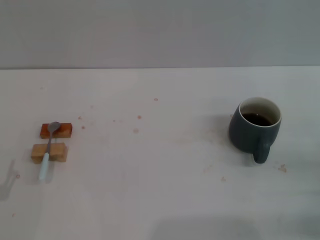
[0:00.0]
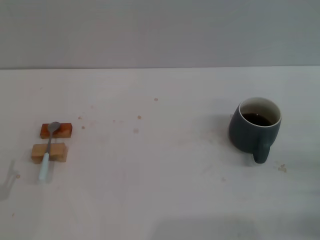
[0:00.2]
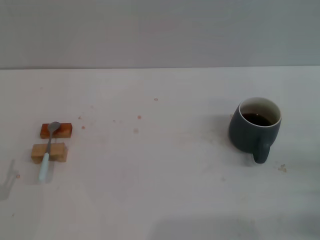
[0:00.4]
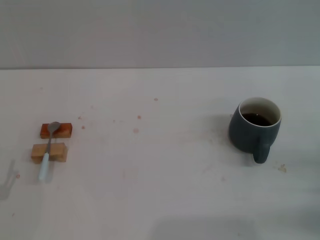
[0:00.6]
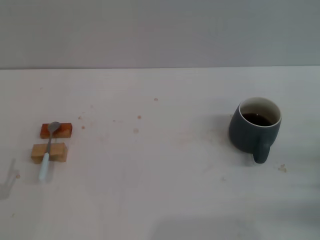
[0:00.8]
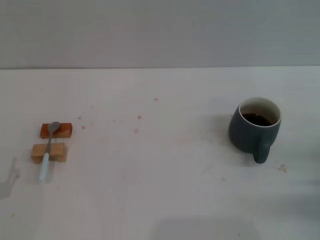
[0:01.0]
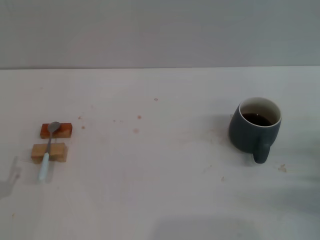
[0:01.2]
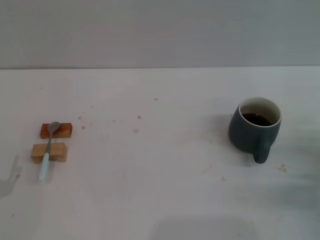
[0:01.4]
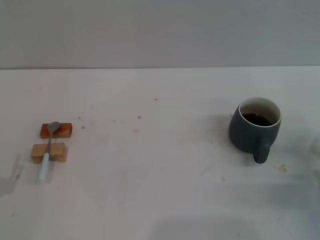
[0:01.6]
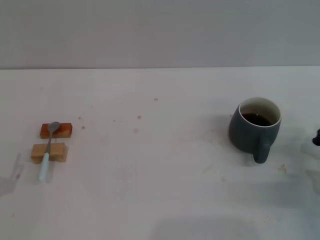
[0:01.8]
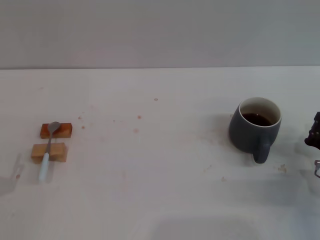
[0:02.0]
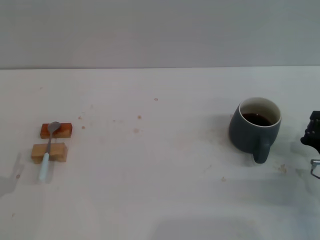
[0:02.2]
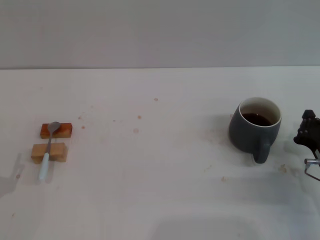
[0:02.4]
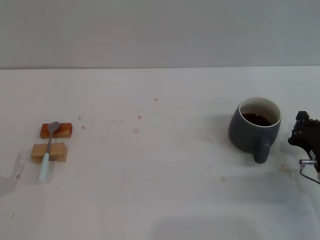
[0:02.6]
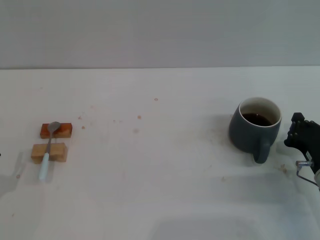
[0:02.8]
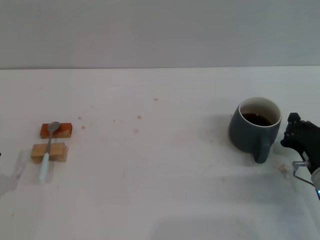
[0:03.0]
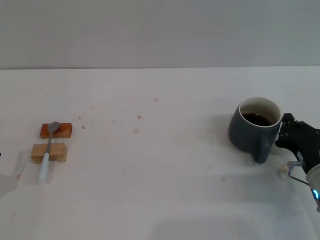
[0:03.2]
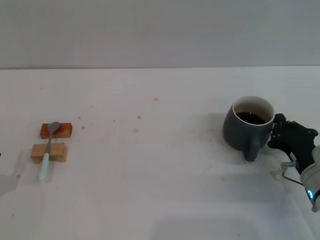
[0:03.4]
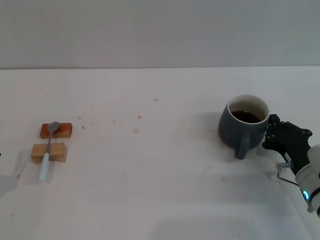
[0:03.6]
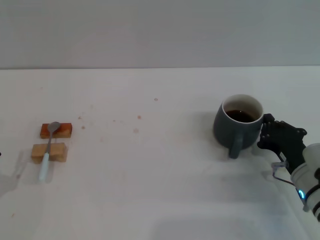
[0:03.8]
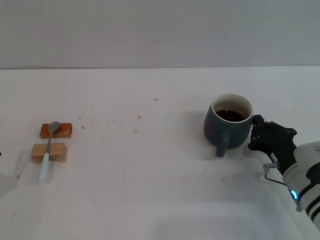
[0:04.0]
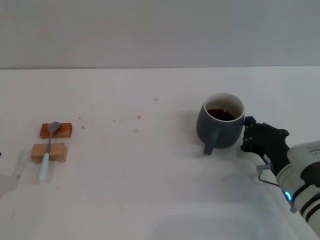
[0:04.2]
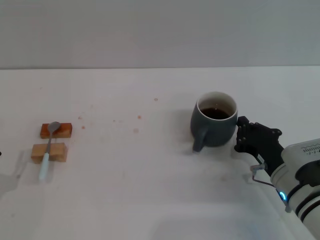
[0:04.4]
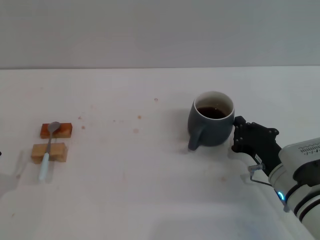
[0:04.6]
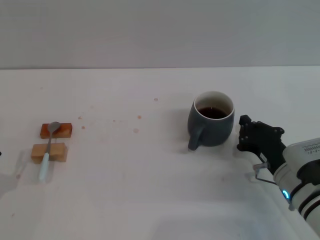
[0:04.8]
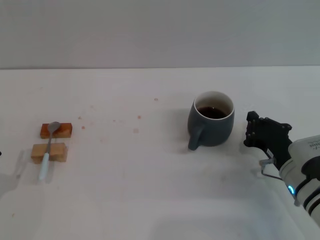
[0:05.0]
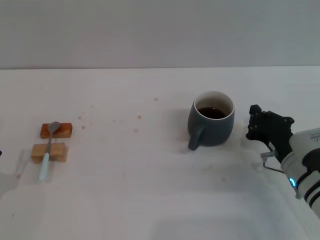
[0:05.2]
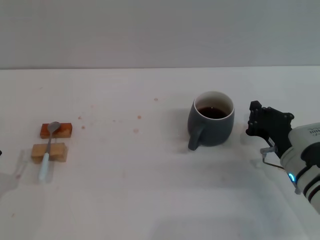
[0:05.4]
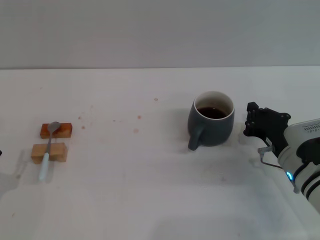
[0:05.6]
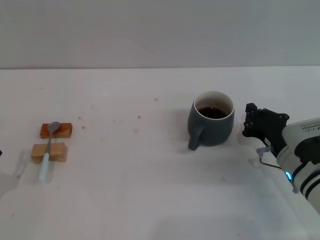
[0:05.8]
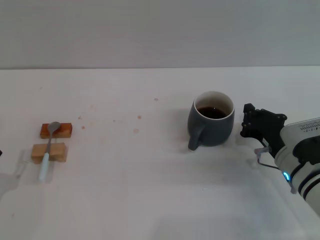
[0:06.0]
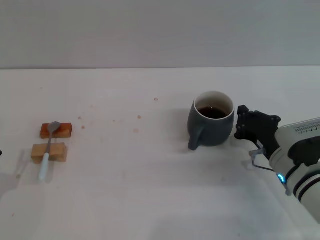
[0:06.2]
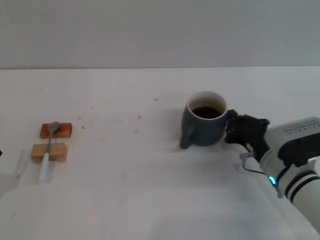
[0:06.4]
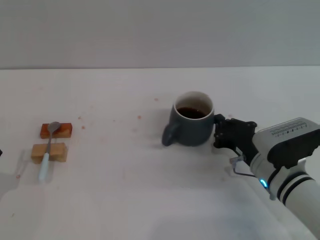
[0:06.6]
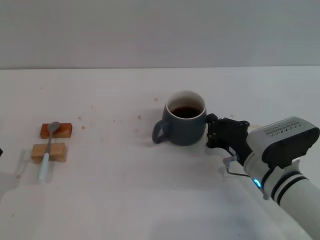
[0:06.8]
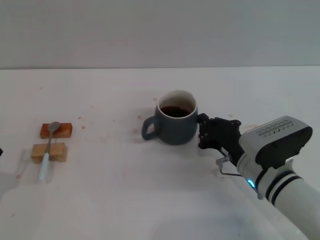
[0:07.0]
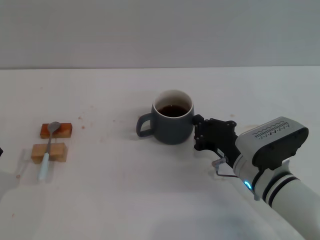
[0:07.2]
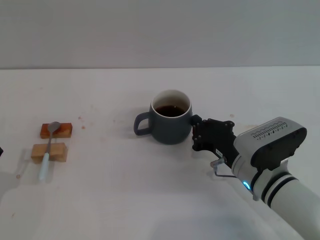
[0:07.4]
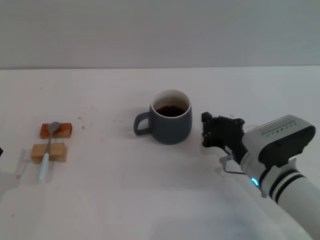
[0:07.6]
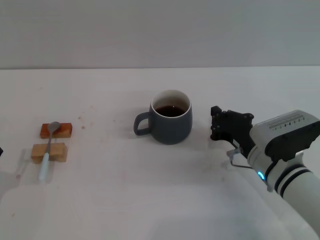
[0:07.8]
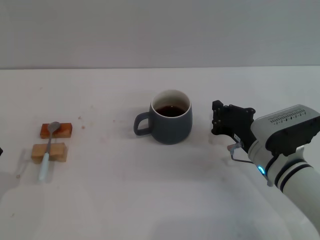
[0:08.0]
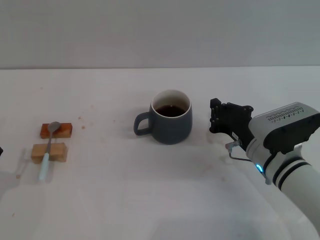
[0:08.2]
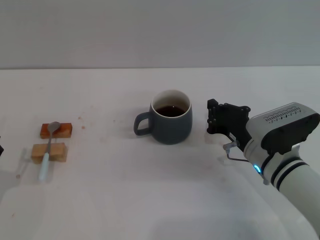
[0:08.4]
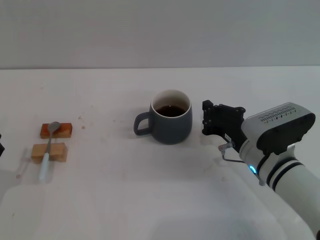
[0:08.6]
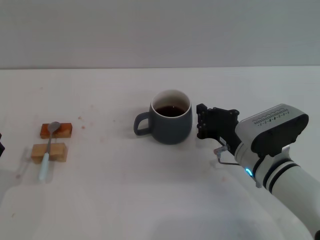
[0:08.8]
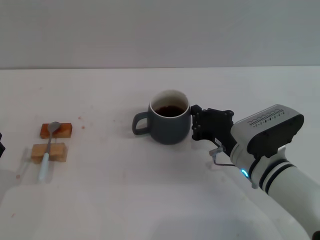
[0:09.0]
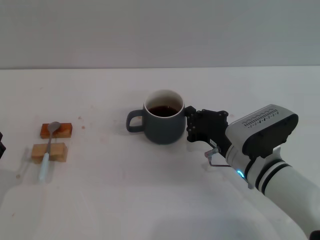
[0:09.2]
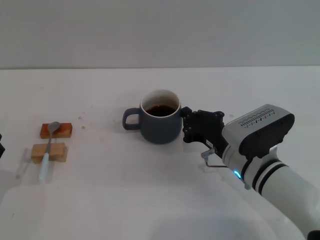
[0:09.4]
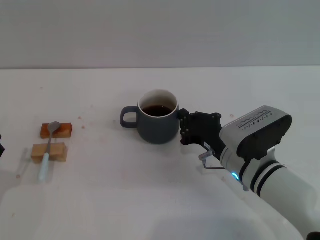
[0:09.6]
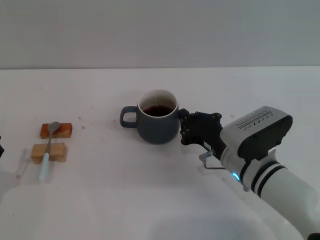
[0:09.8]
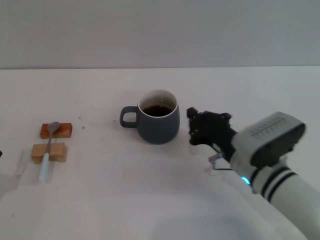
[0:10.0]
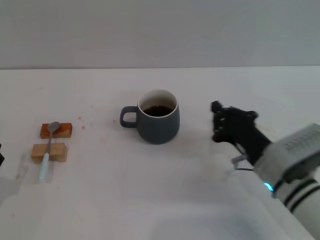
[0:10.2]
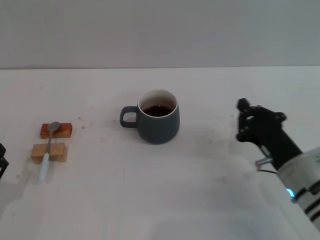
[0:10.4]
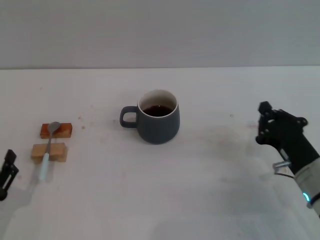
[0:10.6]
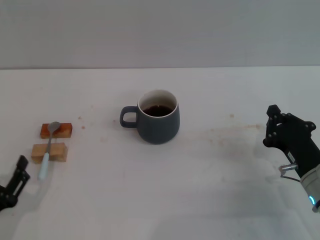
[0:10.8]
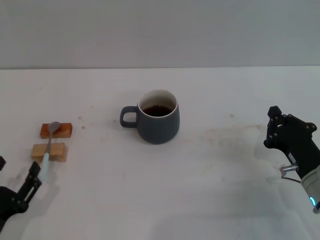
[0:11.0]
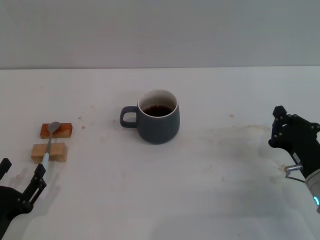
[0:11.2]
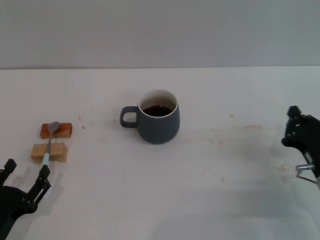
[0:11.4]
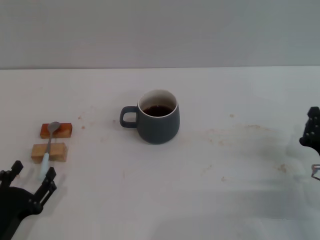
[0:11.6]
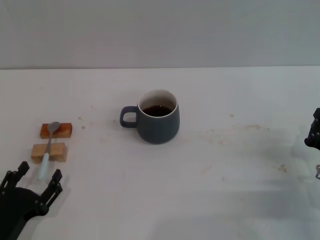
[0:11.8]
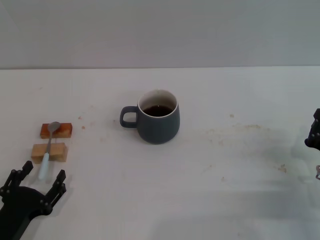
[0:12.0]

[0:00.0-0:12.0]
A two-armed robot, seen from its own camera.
Task of the whole recording: Move the grey cup to the center, lift the blue spoon, stir it three times in the cup, and put the spoon into the cup.
Step, 0:00.0 to 0:10.2: Move the cup with coffee to the center of view with the right gripper.
0:00.0 to 0:01.6: The right gripper shifts by some 5 cm.
0:01.6 to 0:03.0: The grippers make only small movements.
0:03.0 to 0:04.4: The right gripper goes some 5 cm to the left.
0:04.4 to 0:06.0: The grippers move only a little.
0:07.6 to 0:09.0: The grippers stay close to where they were, moving slightly.
0:09.0 to 0:10.4: The right gripper goes some 5 cm to the right.
0:10.4 to 0:12.0: The right gripper moves to the right, approximately 5 cm. Meanwhile the left gripper shifts by some 5 cm.

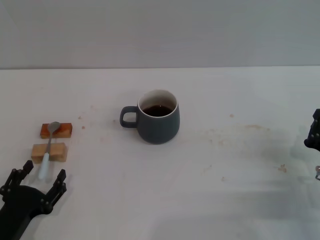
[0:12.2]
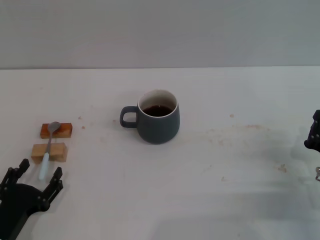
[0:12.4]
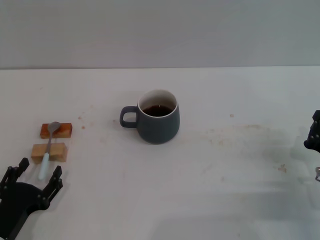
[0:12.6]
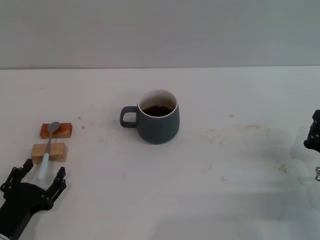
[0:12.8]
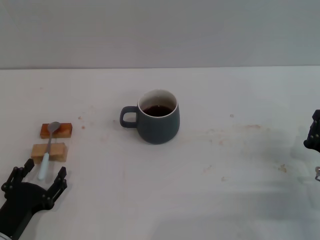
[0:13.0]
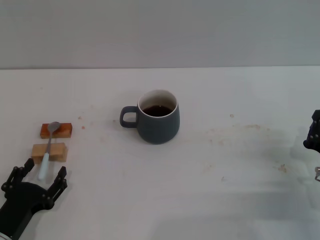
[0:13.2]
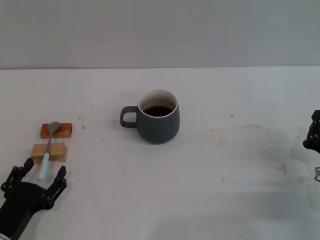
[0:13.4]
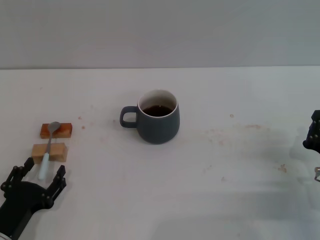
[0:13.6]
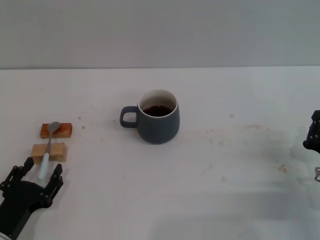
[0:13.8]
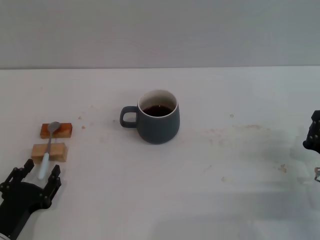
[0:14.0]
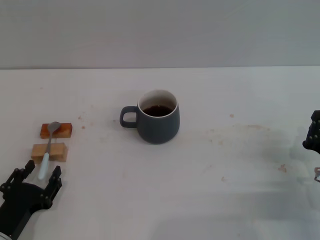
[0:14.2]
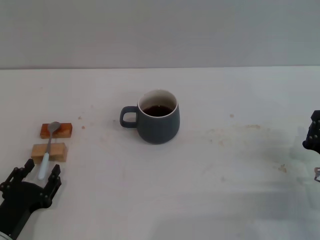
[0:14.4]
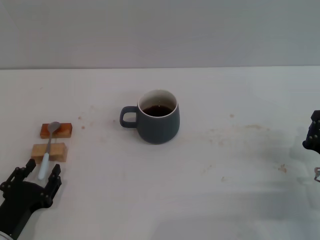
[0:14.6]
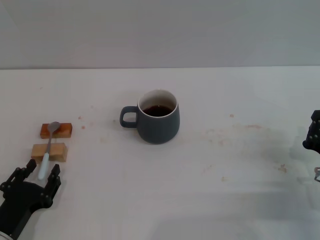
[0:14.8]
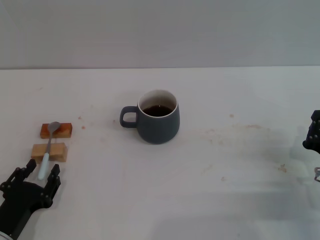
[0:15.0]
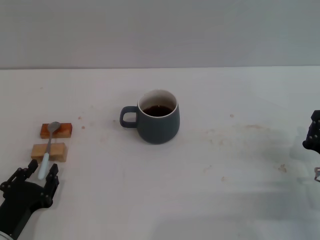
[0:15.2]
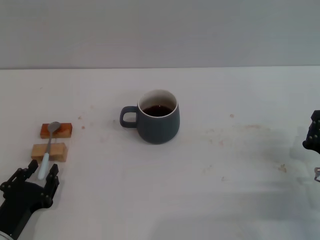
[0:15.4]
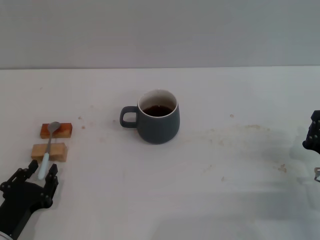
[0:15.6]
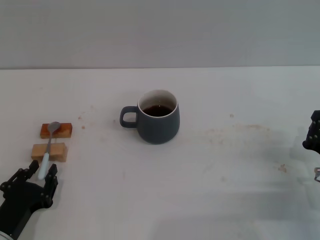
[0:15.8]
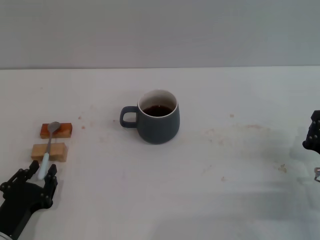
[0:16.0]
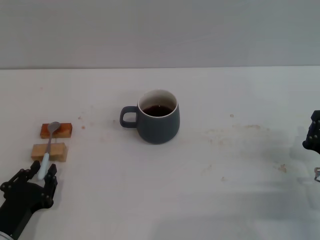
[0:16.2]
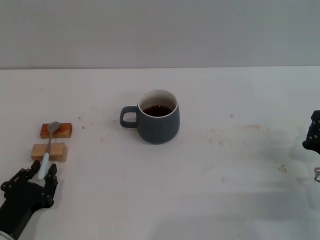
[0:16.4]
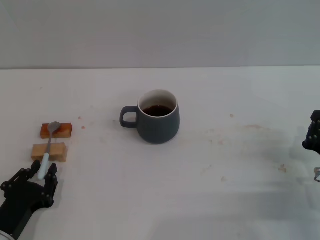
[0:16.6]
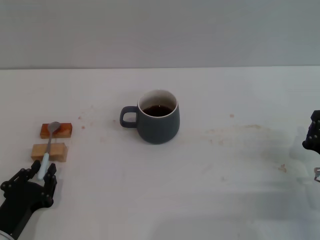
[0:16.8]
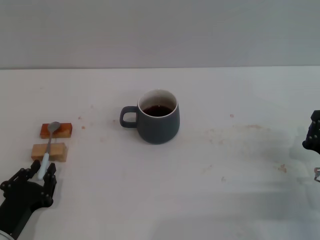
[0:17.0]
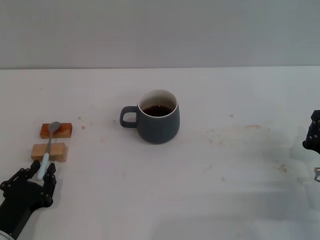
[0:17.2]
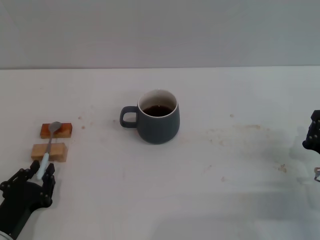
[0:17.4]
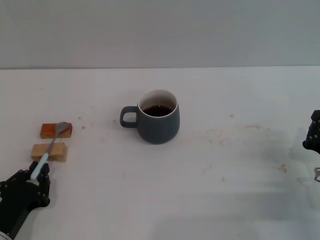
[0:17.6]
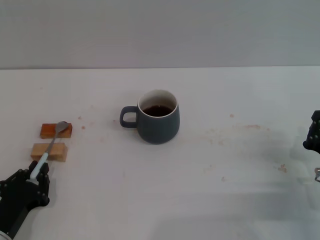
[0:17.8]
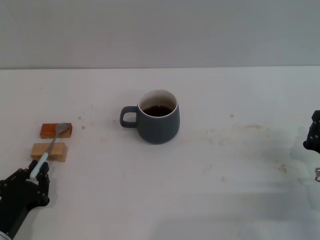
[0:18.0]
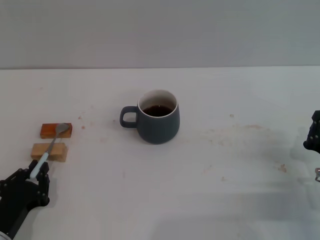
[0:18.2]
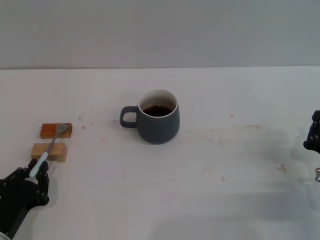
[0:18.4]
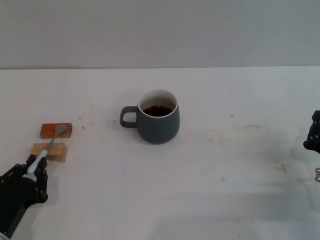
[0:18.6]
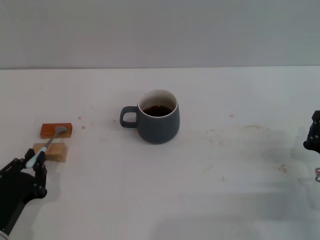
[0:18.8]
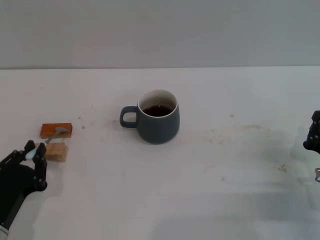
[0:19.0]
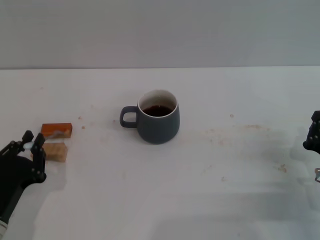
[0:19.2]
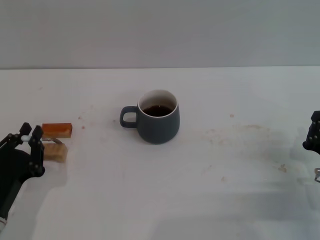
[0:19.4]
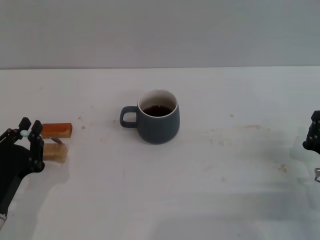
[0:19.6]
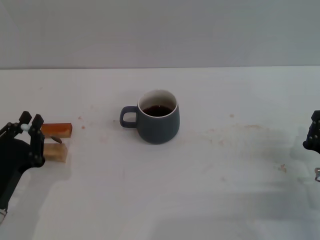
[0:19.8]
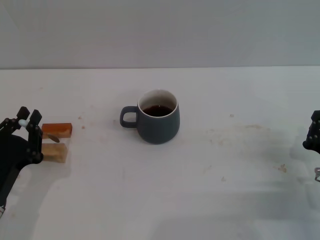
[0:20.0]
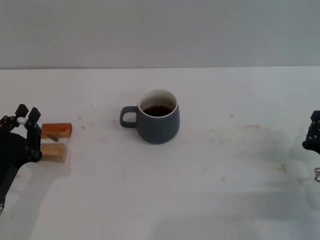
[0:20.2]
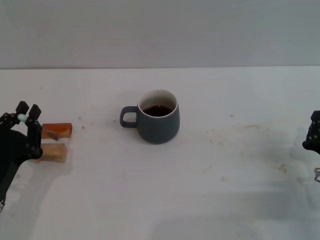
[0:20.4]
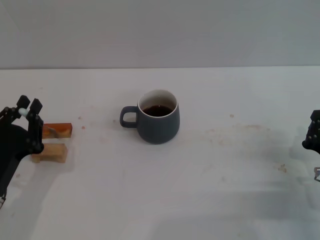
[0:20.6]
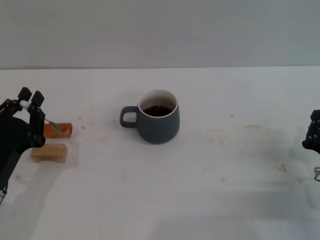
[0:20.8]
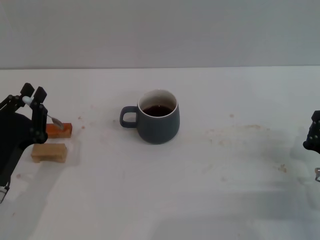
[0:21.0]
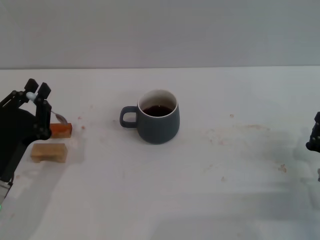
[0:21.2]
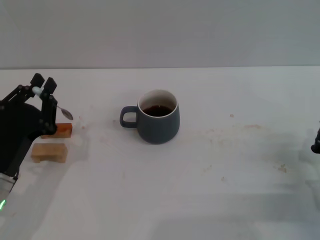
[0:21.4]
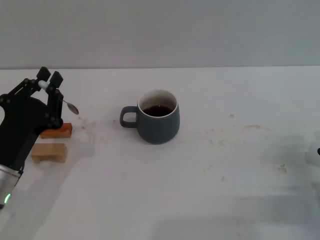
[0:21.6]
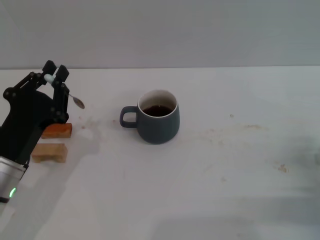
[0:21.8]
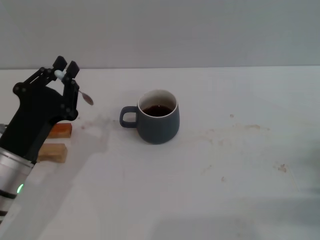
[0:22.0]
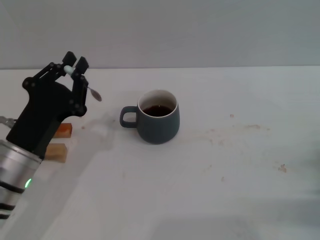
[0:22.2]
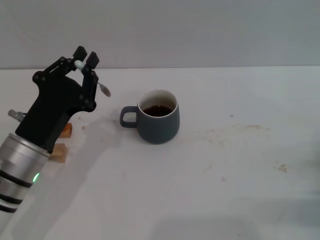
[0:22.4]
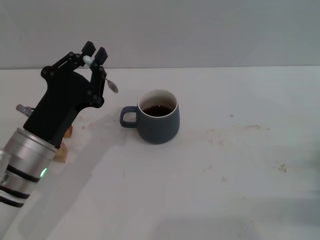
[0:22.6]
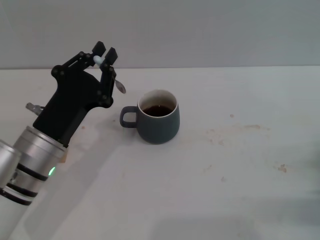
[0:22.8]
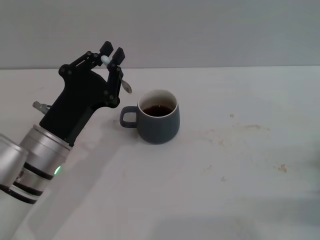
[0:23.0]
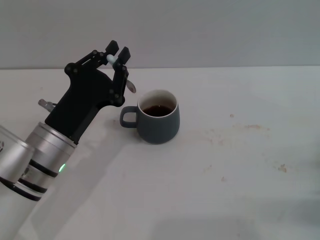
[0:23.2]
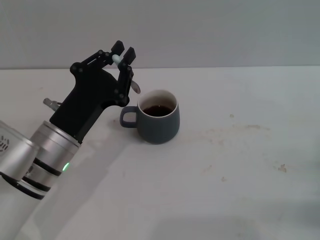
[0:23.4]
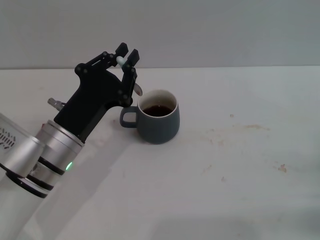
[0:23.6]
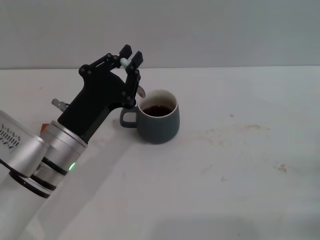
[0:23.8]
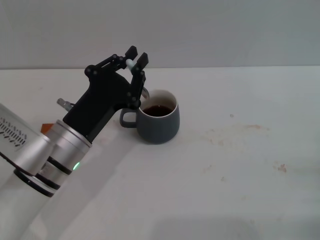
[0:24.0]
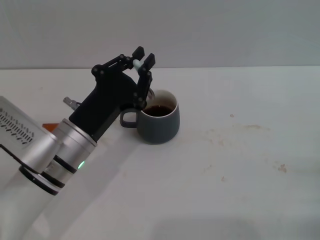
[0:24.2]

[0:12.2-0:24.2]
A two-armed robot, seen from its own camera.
Task of the whole recording: Move the grey cup to the center, lift the blue spoon, stir it three times in the cup, and put the spoon into the cup.
Step, 0:12.2 to 0:20.8: Pick up the spoon with the left gripper.
0:12.2 to 0:18.2: Neither gripper changes place.
0:18.2 to 0:19.8: The left gripper changes place by approximately 5 cm.
0:19.8 to 0:21.2: The grippers make only small movements.
0:21.2 to 0:22.6: The left gripper heads to the right, covering about 5 cm.
0:22.6 to 0:24.2: There are only small adjustments of the grippers.
